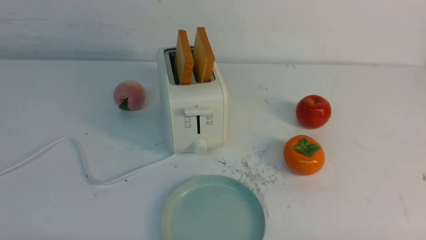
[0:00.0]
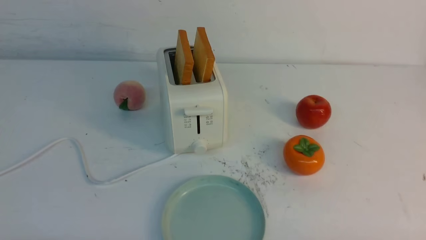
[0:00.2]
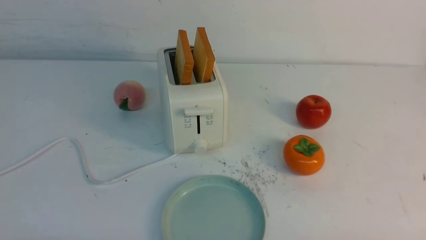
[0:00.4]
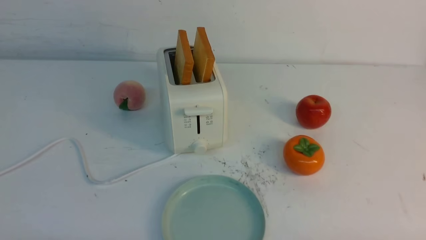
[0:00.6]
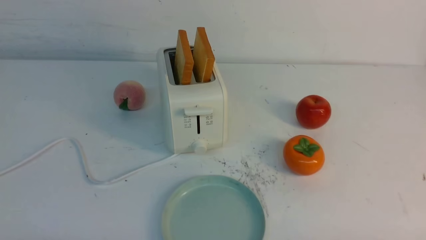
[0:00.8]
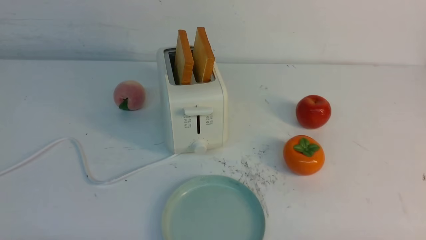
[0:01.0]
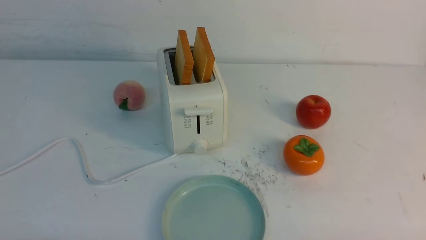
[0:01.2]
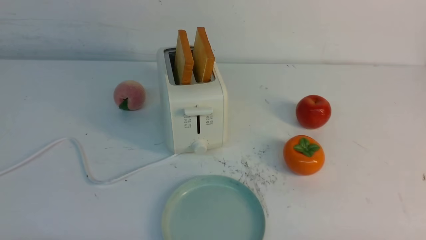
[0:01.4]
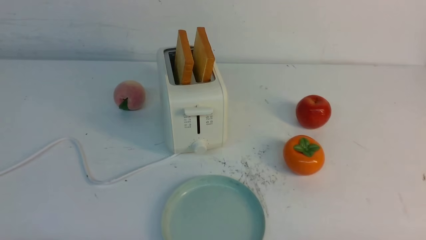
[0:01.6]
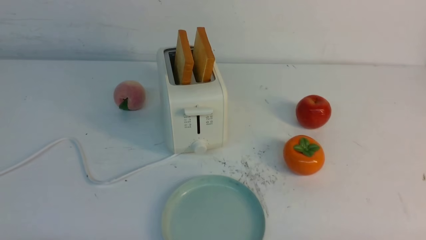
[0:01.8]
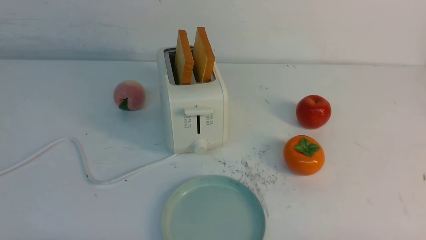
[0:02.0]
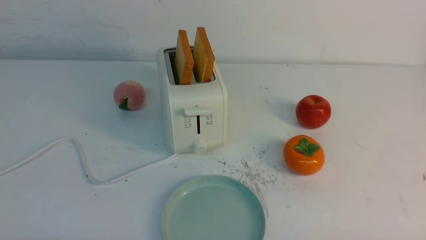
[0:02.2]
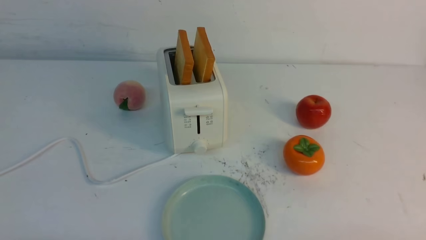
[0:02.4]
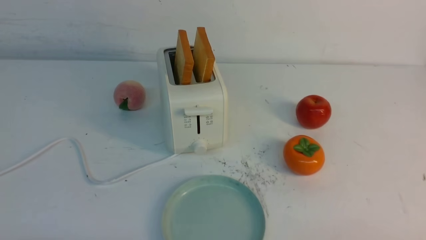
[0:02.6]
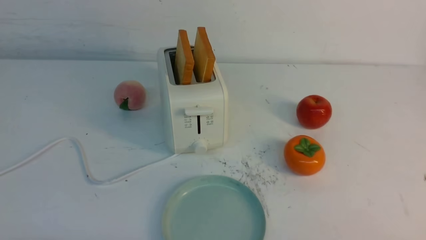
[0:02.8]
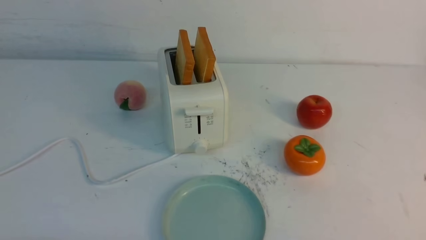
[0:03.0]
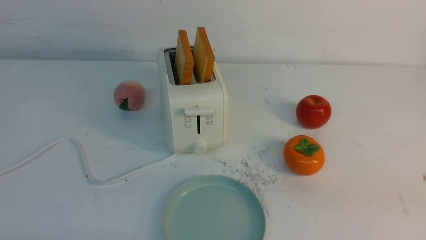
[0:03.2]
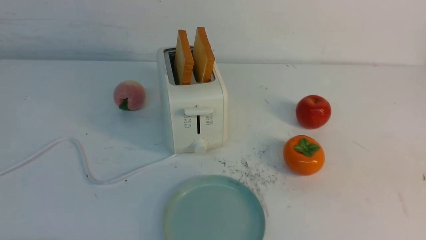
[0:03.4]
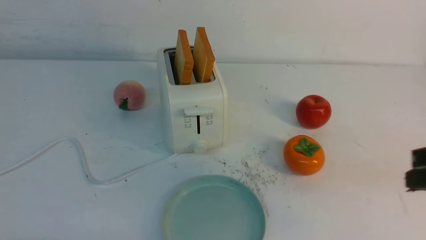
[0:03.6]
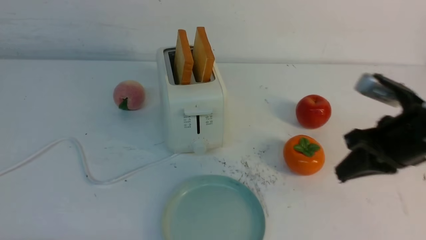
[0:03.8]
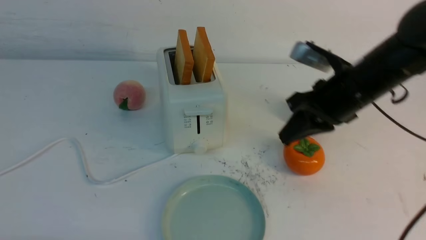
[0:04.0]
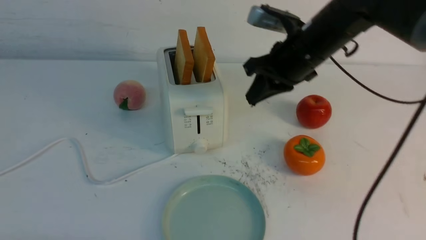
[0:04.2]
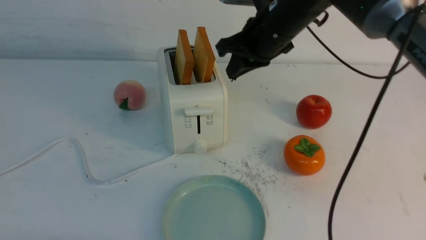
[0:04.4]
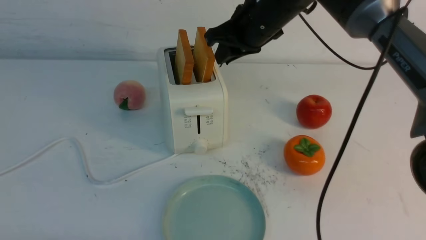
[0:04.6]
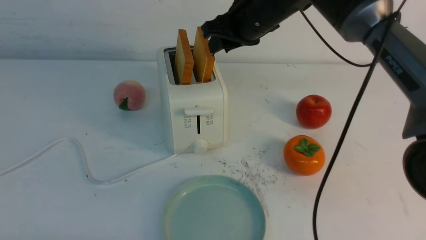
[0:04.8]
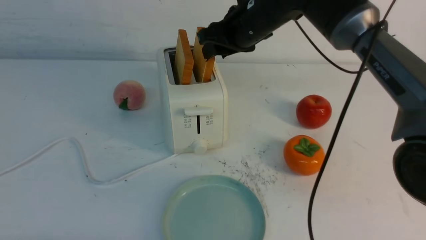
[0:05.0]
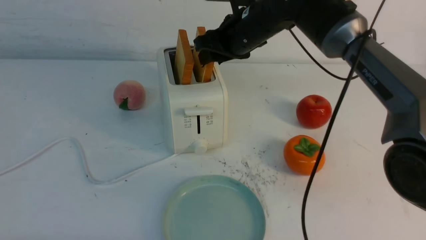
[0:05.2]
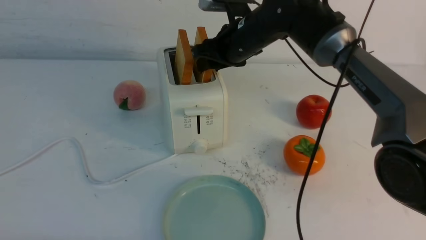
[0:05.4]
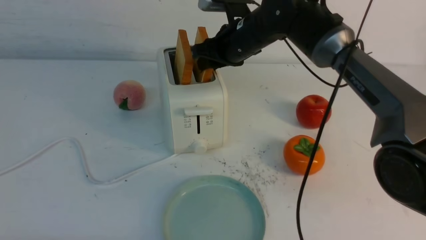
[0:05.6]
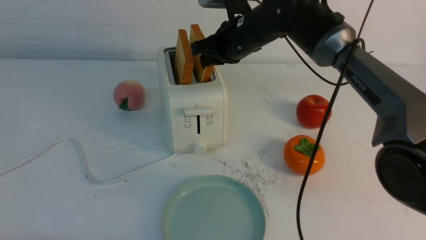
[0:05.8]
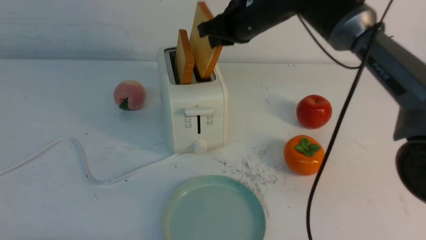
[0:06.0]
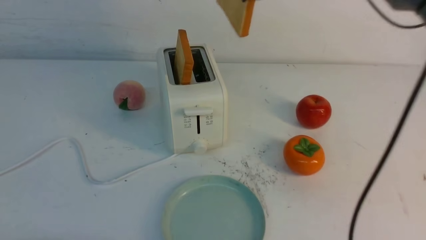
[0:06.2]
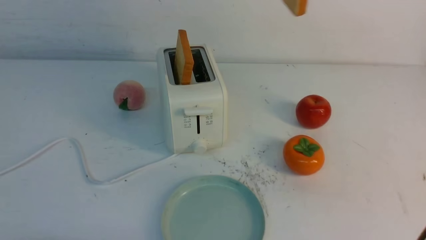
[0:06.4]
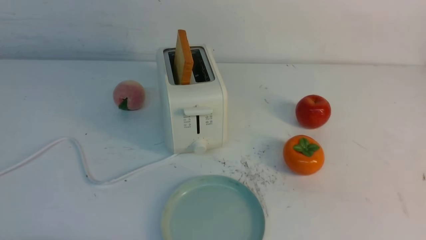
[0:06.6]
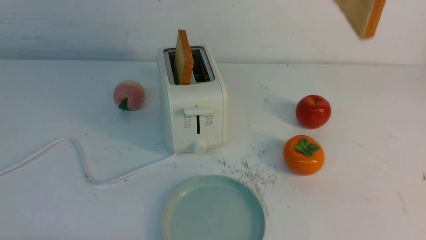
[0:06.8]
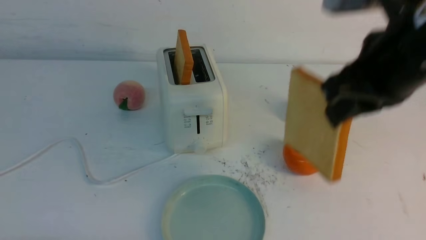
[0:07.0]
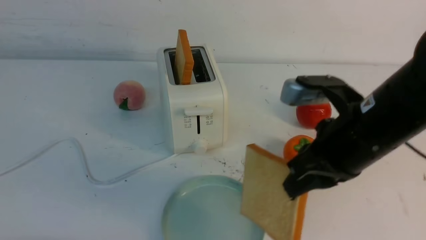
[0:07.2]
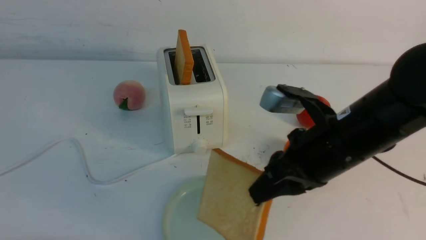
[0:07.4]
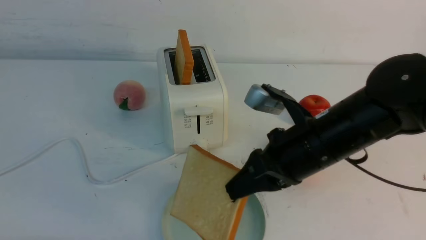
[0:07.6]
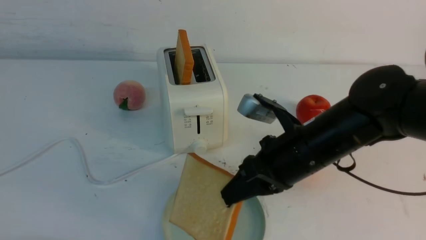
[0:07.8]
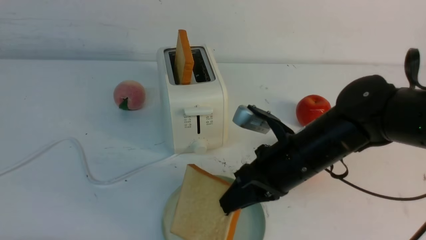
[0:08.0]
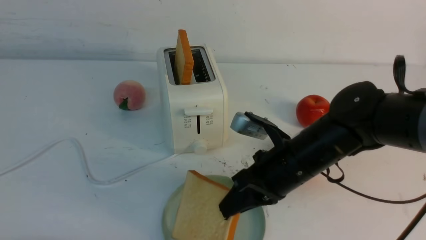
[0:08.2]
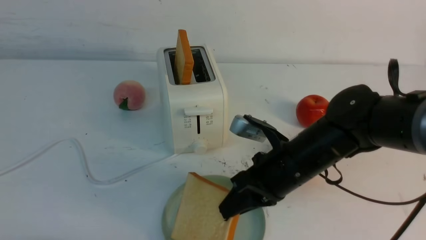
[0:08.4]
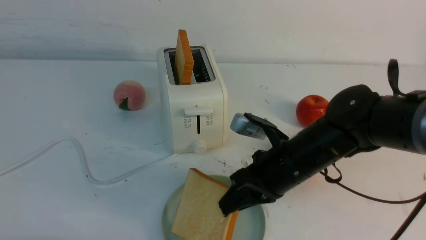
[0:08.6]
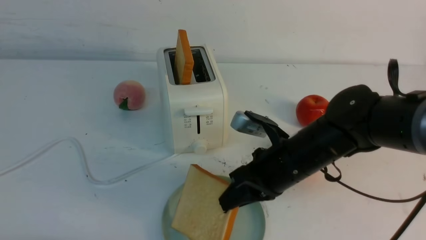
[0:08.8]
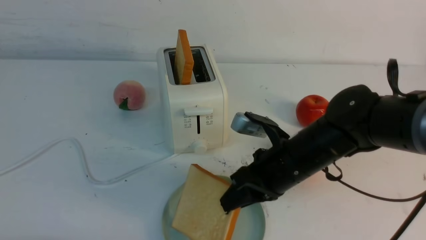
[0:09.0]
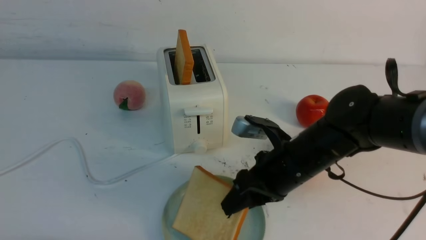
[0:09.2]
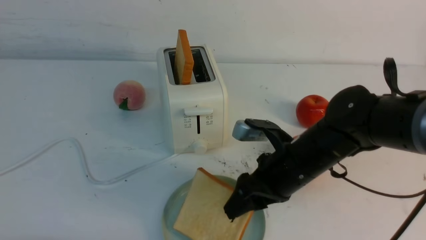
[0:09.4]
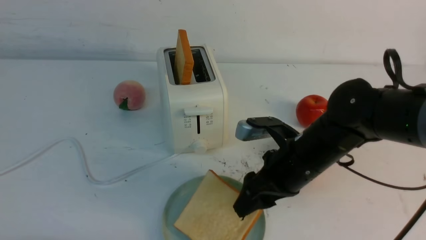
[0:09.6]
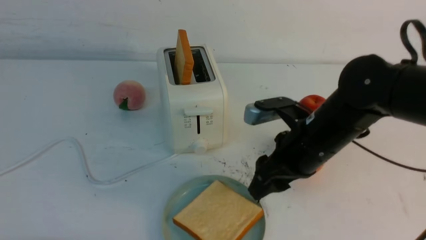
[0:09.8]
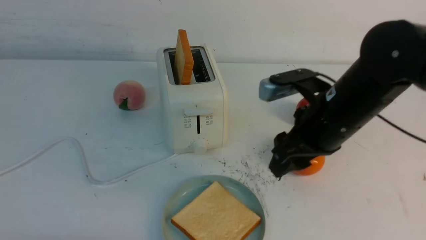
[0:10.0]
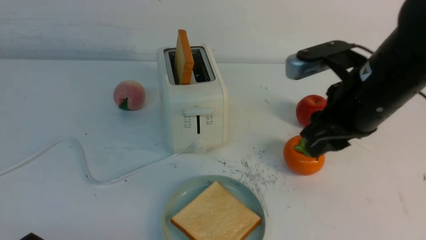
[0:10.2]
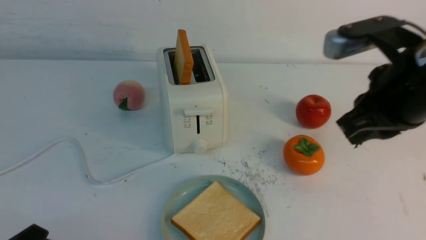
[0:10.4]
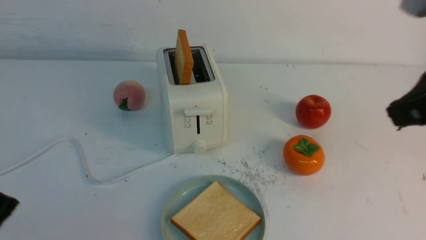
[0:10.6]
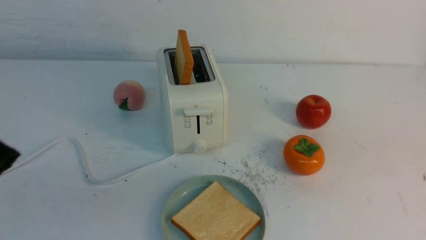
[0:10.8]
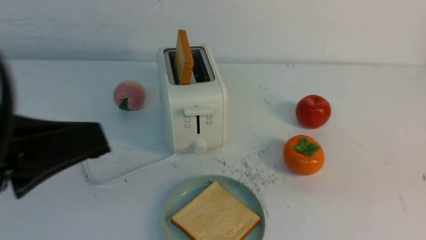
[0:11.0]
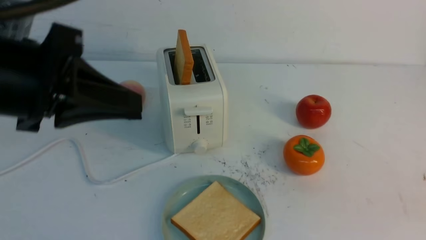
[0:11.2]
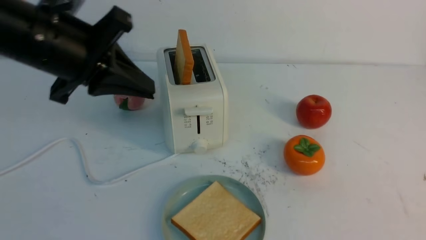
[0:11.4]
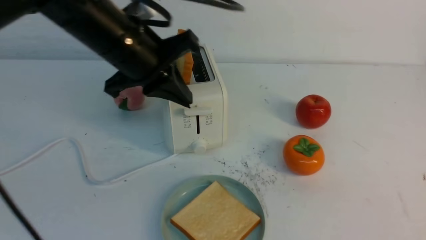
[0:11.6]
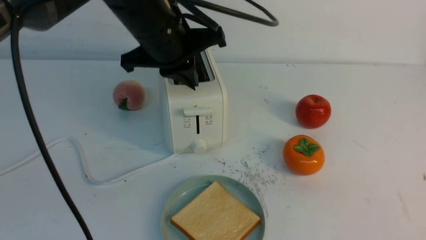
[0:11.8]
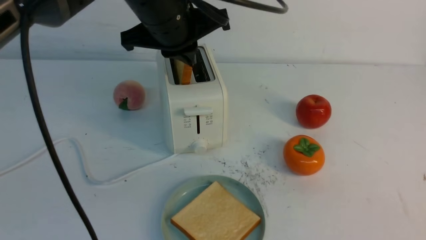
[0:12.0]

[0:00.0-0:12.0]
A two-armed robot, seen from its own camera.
Task of the whole recording: take toasted bread from bread machine on white table place on plate.
Step, 0:00.0 to 0:06.0: use the right arm to take out a slice of bread.
Step, 0:06.2 to 0:09.6: use the right arm to put a slice of bread into the plate.
0:00.0 to 0:01.6: The two grippers keep their place.
0:03.0 to 0:04.4: The right gripper heads forward and to the left, covering roughly 40 cm.
0:04.4 to 0:06.0: The right gripper opens and closes again.
0:06.0 to 0:07.6: The right gripper shifts roughly 20 cm backward and downward.
0:07.6 to 0:09.0: The right gripper is displaced downward by approximately 5 cm.
0:09.0 to 0:10.4: The right gripper travels upward and to the right by roughly 20 cm, and opens, then closes once more, while the left gripper changes place by roughly 5 cm.
0:10.4 to 0:12.0: The left gripper travels forward, to the right and upward by roughly 40 cm, and closes its fingers. The right gripper goes roughly 20 cm backward and to the right.

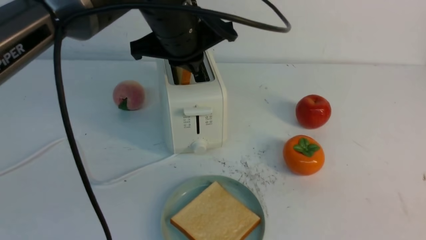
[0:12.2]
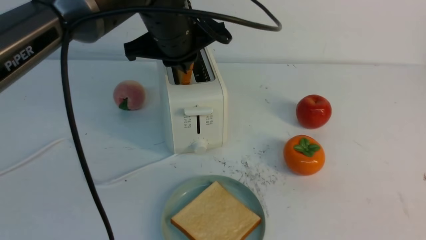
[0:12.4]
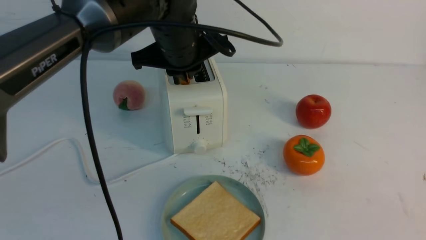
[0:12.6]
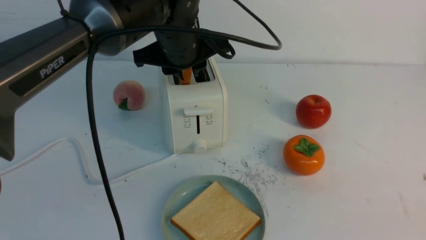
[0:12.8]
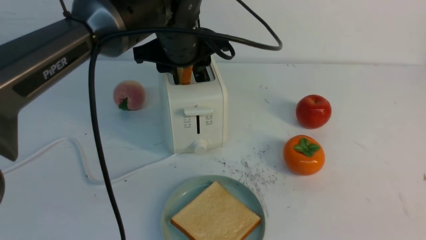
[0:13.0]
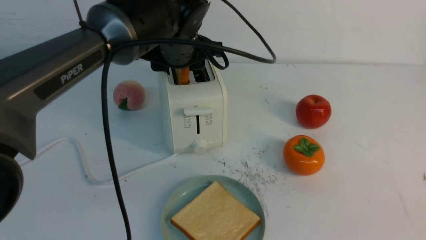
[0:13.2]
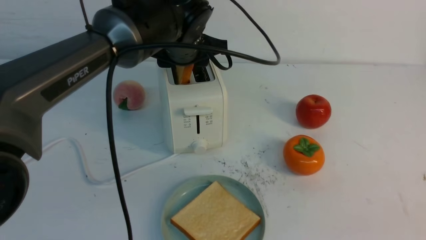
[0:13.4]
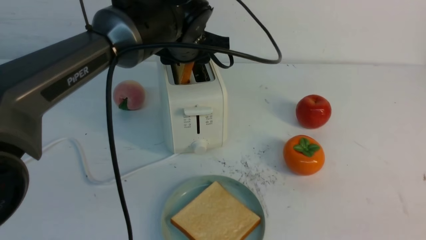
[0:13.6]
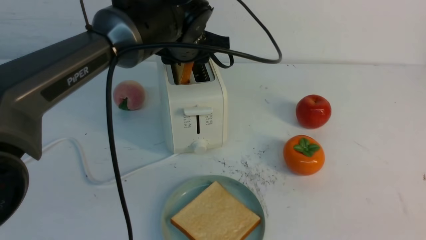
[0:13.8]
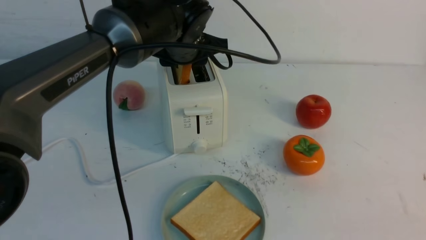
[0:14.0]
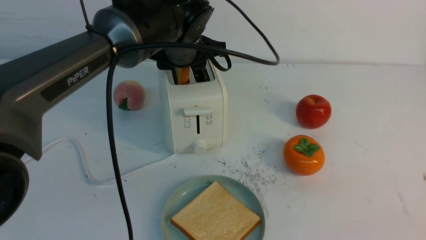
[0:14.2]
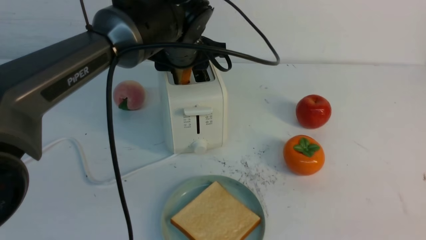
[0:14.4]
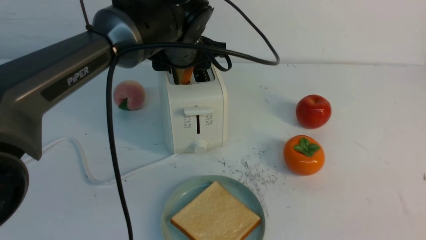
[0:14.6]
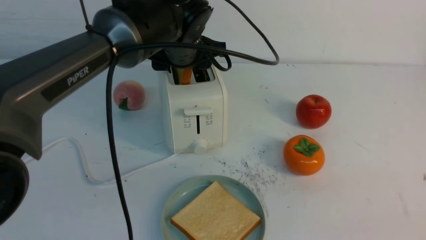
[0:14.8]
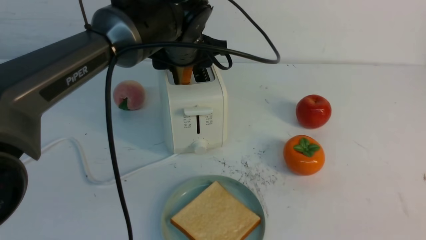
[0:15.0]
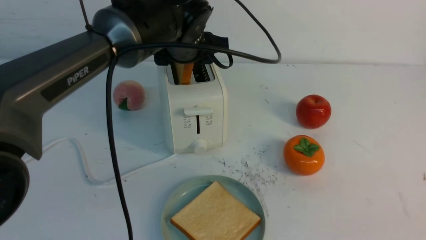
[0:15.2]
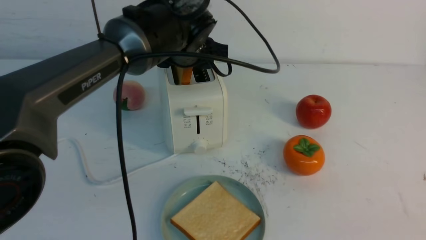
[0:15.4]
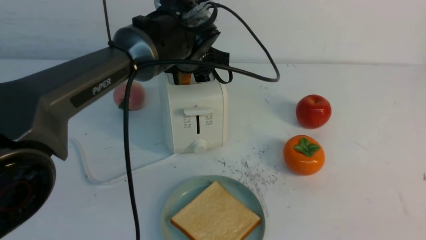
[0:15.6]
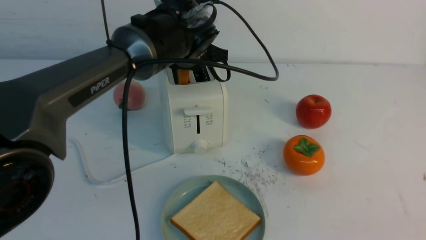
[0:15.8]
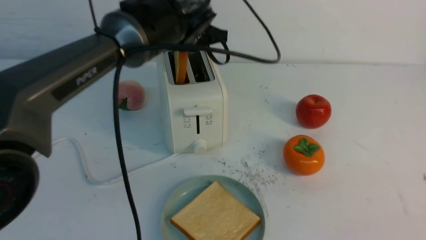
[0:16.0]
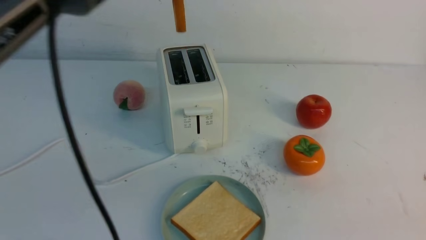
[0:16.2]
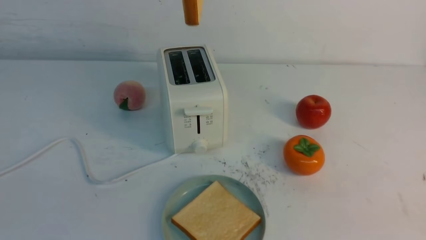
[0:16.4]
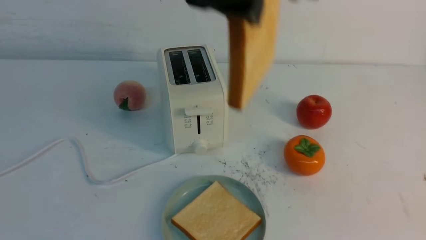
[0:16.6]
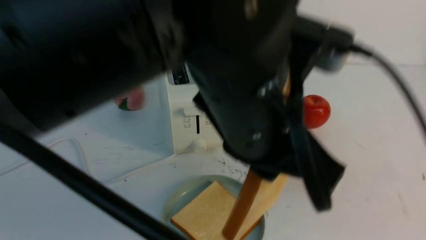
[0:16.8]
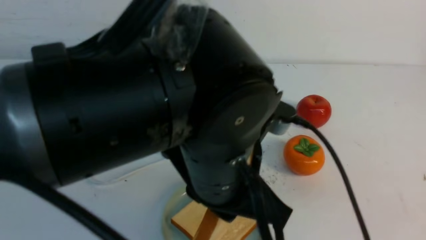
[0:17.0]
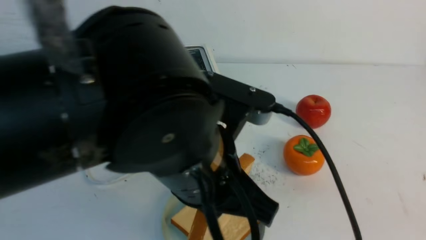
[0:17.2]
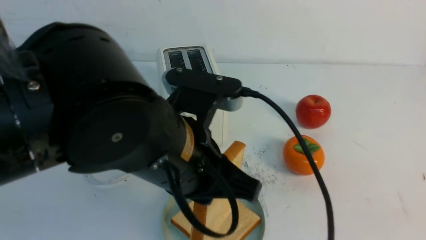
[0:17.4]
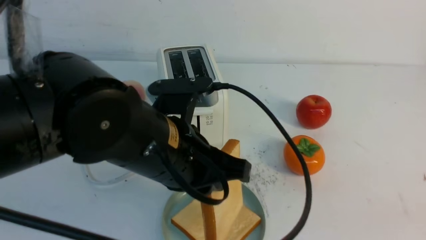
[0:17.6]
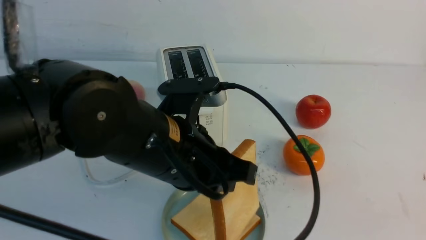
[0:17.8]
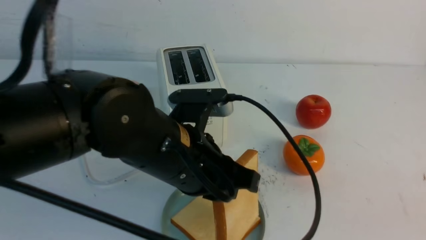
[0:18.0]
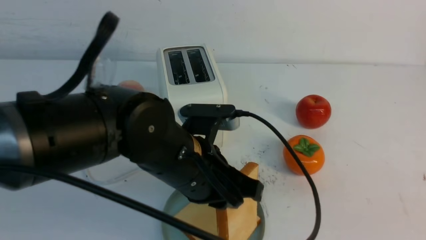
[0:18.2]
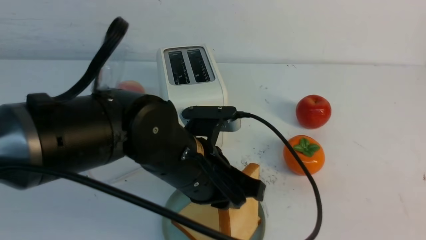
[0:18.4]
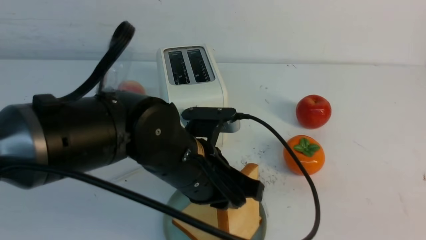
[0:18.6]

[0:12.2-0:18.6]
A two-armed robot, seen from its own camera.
Task of the whole recording: take toasted bread from bread machine on white table place on plate.
Step, 0:12.2 to 0:16.0: use the left arm to take out a slice of bread.
0:12.2 to 0:13.8: The left gripper moves roughly 5 cm, and opens up.
0:13.8 to 0:15.4: The grippers stay close to where they were, moving slightly.
0:15.4 to 0:17.0: The left gripper moves backward, approximately 25 cm, and closes.
0:17.0 to 0:18.6: The left gripper goes roughly 10 cm downward and forward.
